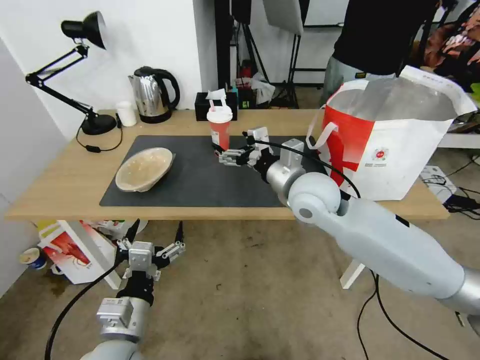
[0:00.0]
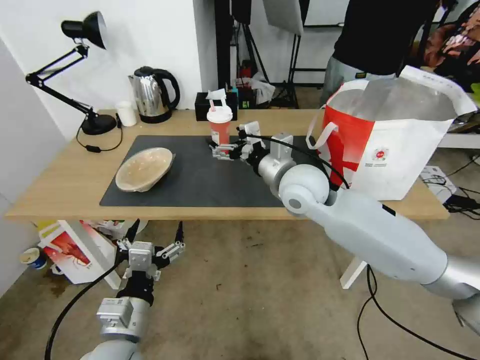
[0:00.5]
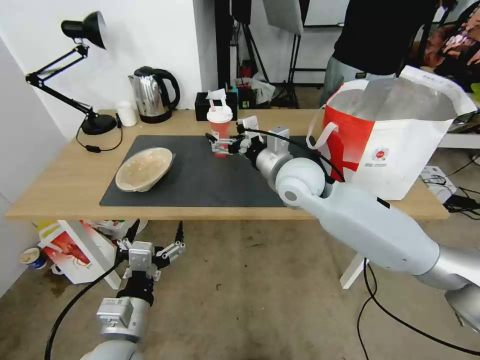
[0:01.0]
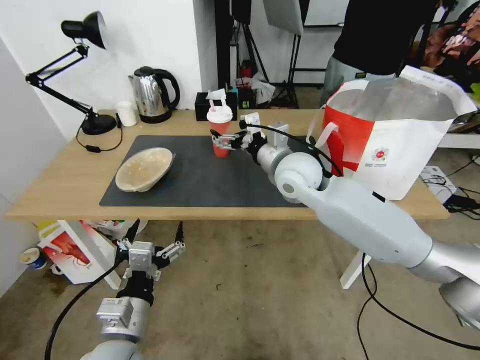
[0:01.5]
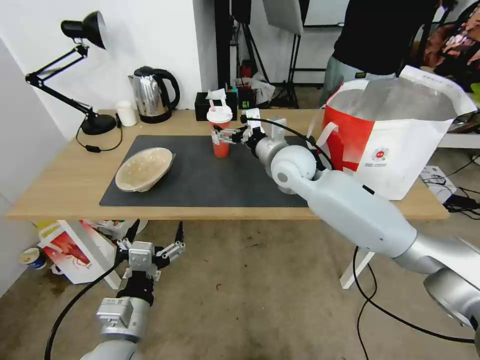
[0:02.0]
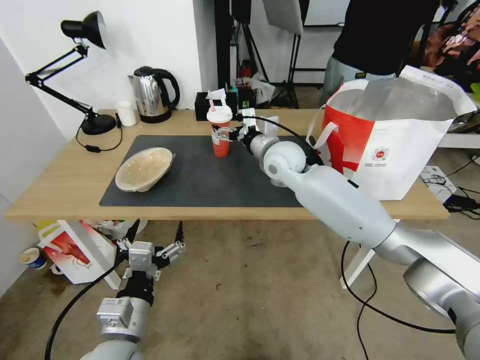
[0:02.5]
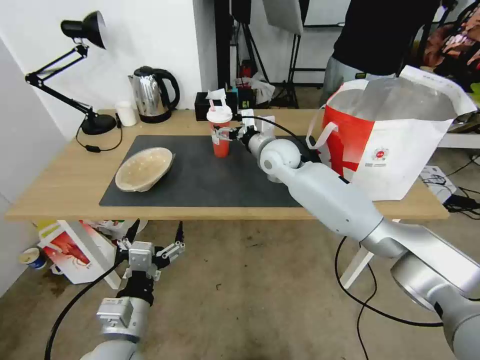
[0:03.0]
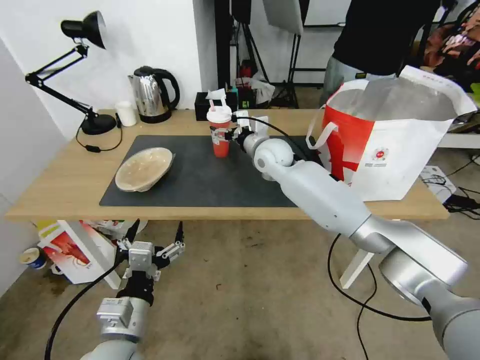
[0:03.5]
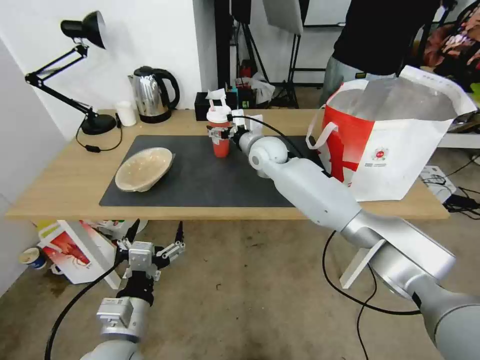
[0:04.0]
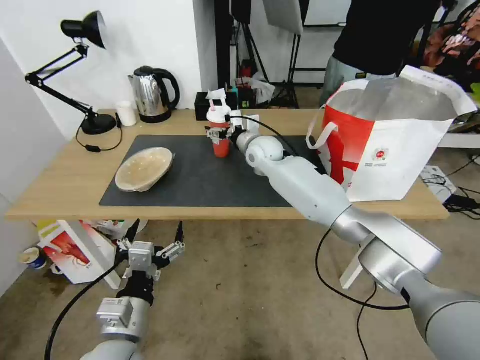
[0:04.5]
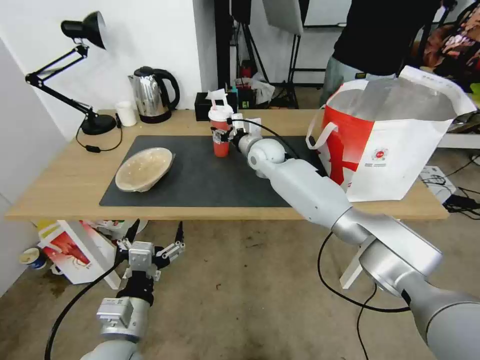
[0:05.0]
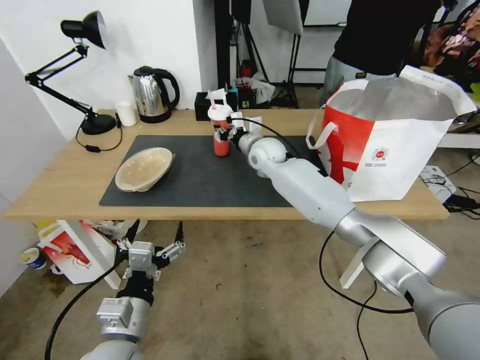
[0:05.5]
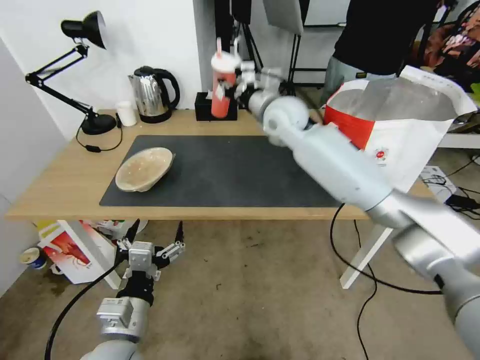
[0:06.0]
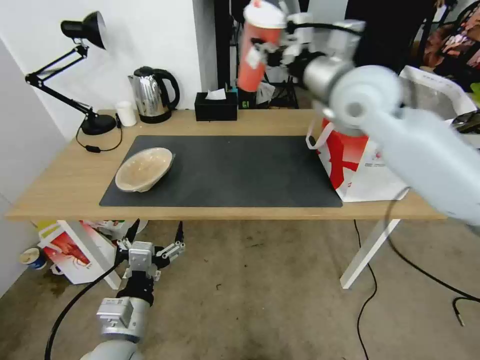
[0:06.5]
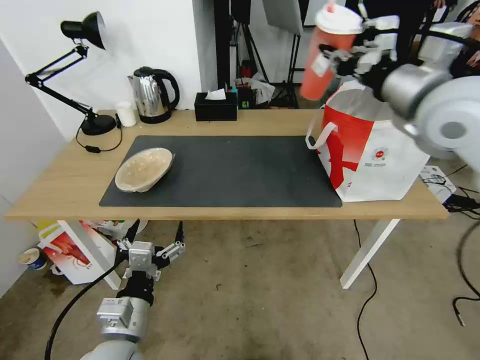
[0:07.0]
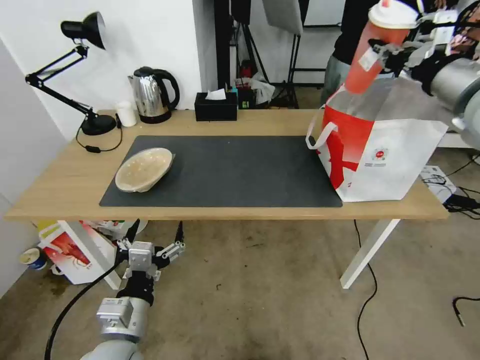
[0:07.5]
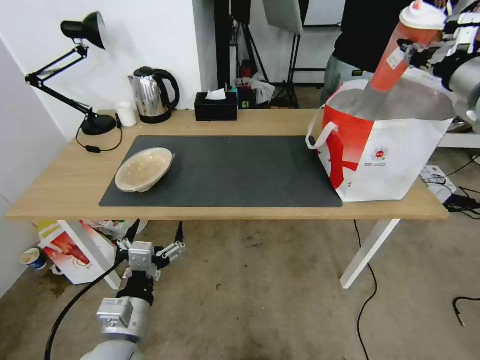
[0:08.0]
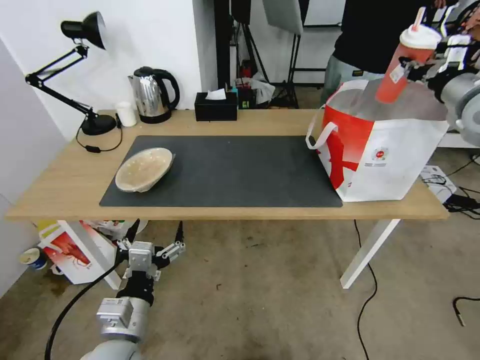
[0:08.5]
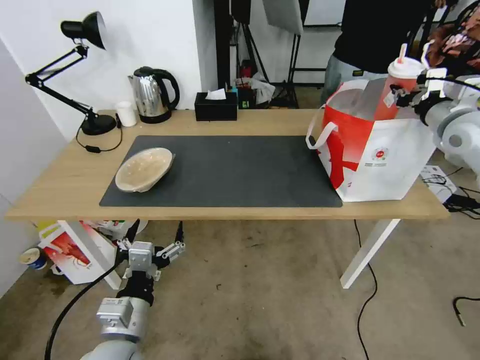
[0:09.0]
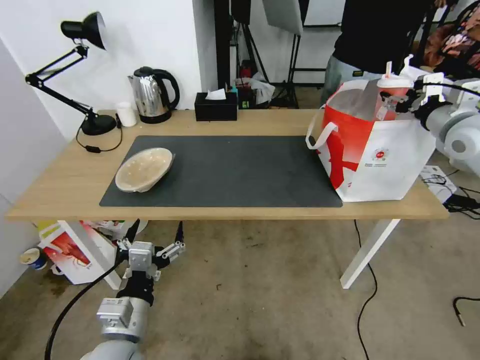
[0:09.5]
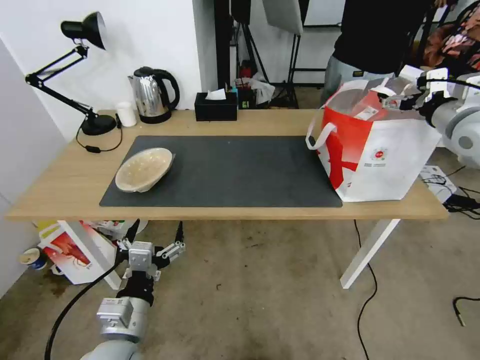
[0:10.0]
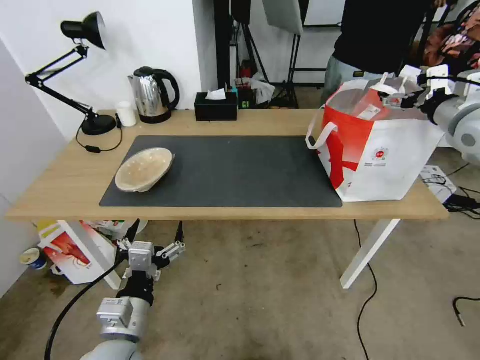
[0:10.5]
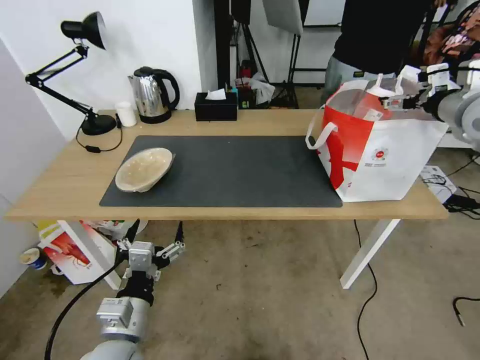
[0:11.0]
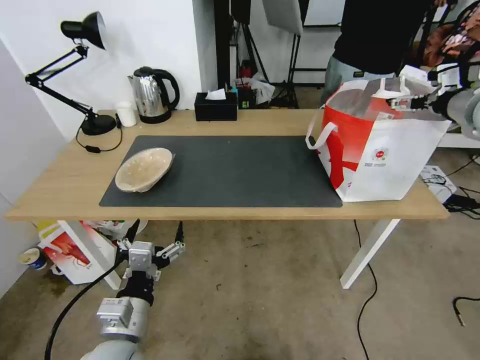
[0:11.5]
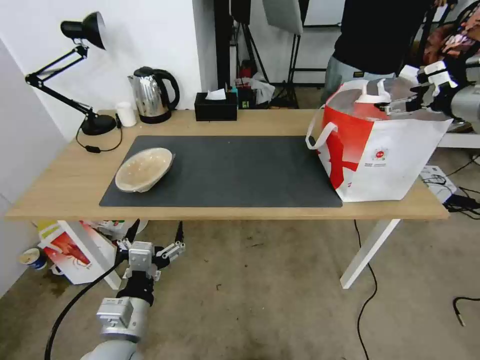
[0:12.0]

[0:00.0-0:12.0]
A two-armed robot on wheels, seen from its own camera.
Task of the whole recording: Pick up the trash from the table and place it into the takeout bag.
0:00.0 to 0:02.0: The right gripper moves forward, about 10 cm.
0:02.0 to 0:04.0: The right gripper is displaced forward by roughly 10 cm.
0:04.0 to 0:06.0: The right gripper heads upward, covering approximately 10 cm, and closes its fingers.
0:06.0 to 0:08.0: The right gripper travels to the right and backward by some 35 cm.
0:08.0 to 0:10.0: The right gripper shifts some 10 cm downward, and opens.
0:10.0 to 0:12.0: The right gripper heads upward, covering approximately 5 cm.

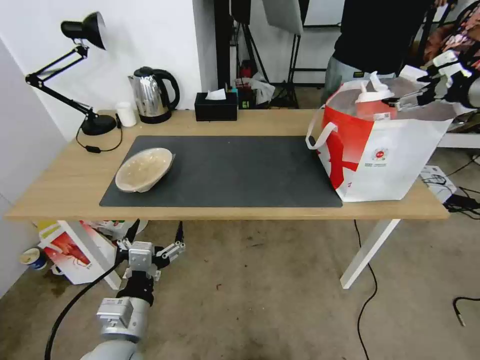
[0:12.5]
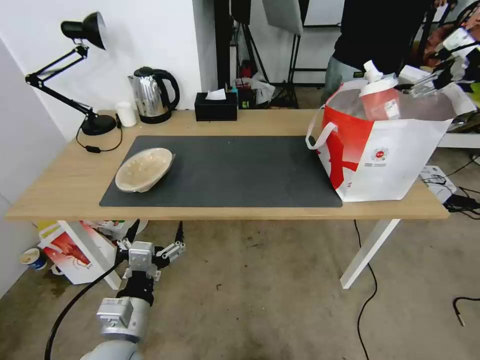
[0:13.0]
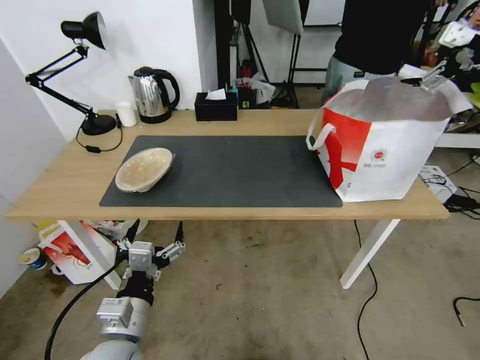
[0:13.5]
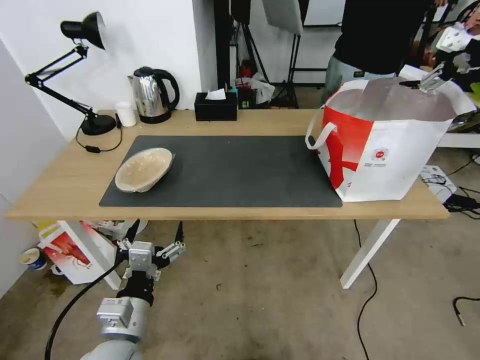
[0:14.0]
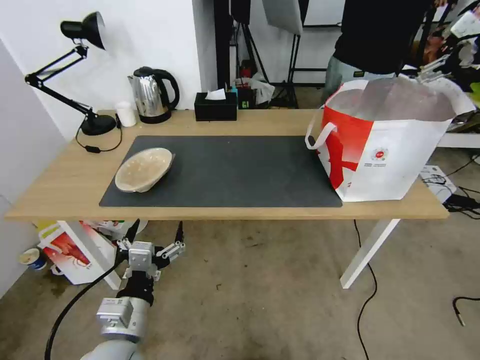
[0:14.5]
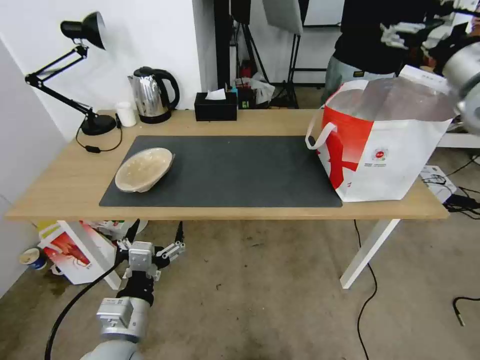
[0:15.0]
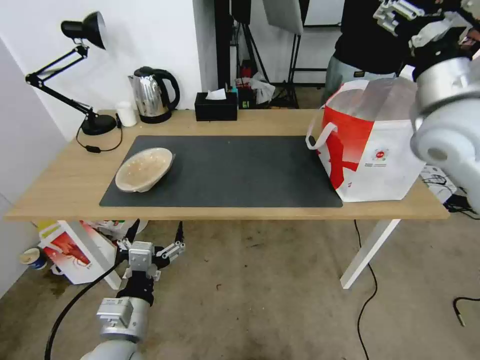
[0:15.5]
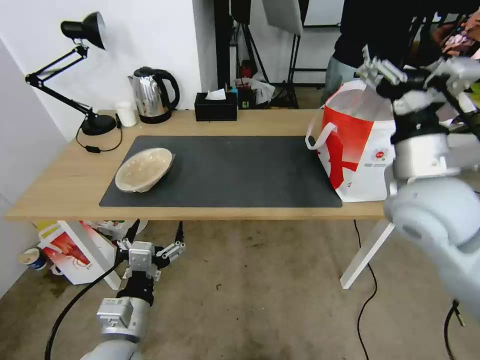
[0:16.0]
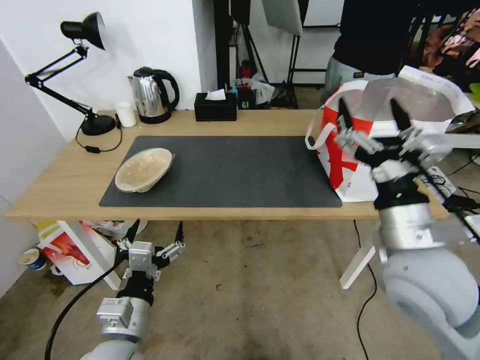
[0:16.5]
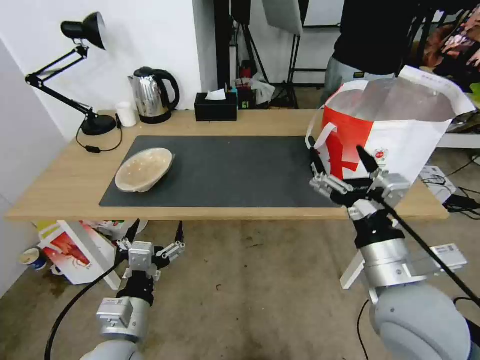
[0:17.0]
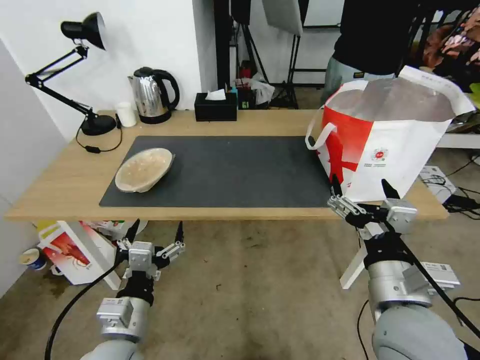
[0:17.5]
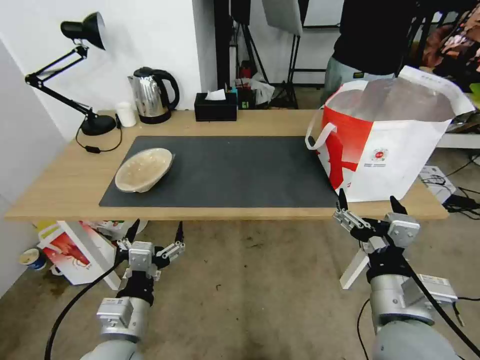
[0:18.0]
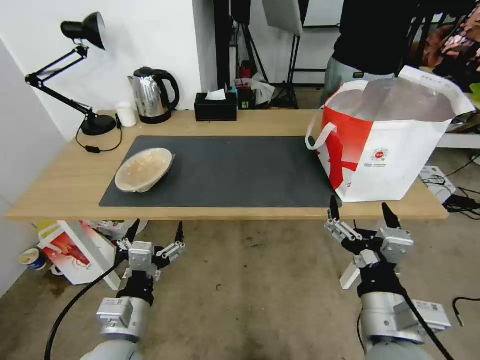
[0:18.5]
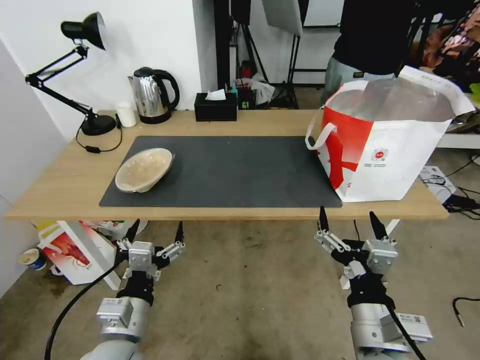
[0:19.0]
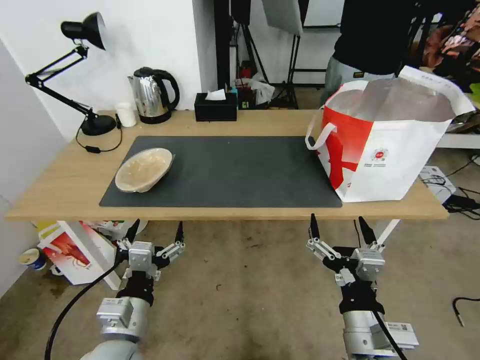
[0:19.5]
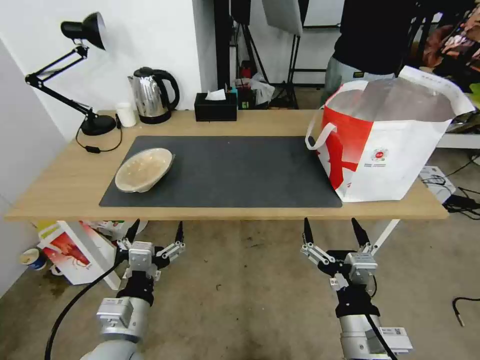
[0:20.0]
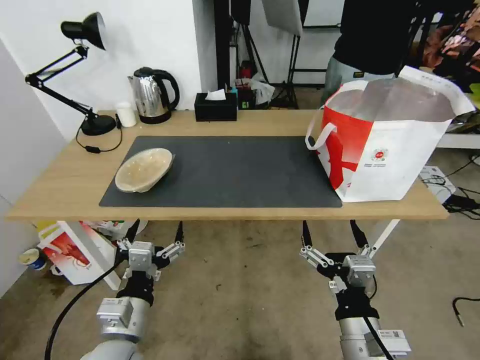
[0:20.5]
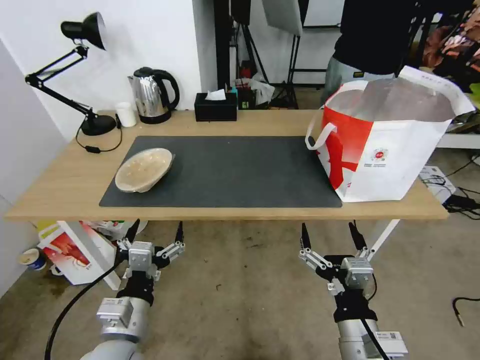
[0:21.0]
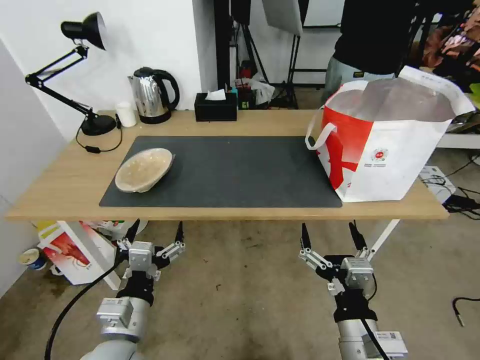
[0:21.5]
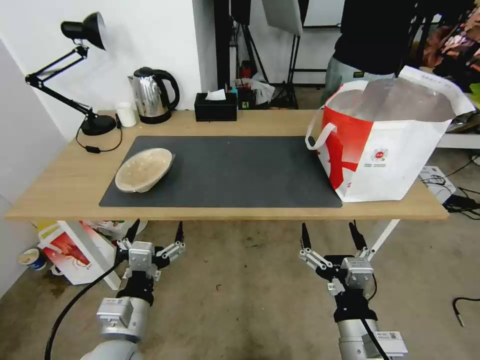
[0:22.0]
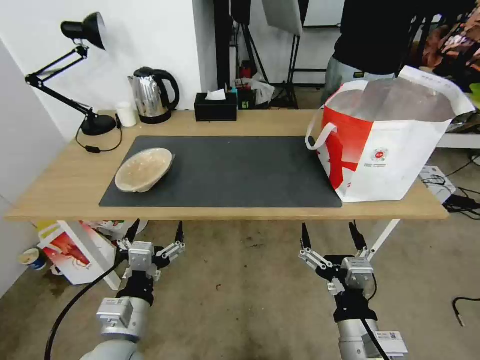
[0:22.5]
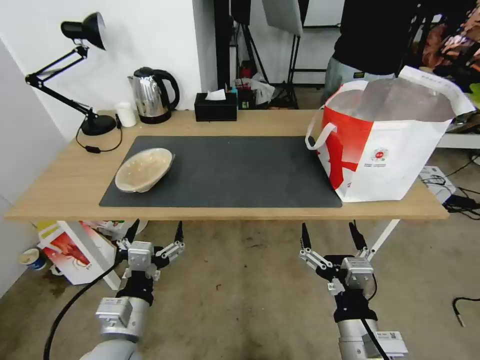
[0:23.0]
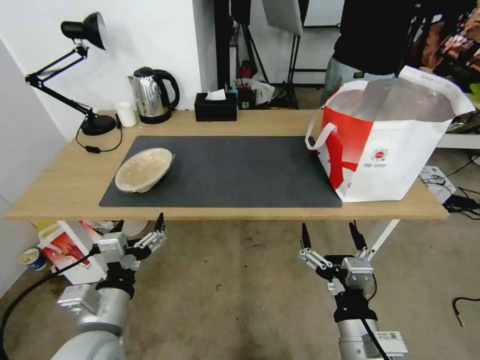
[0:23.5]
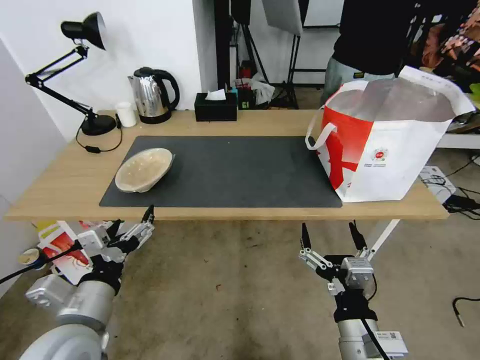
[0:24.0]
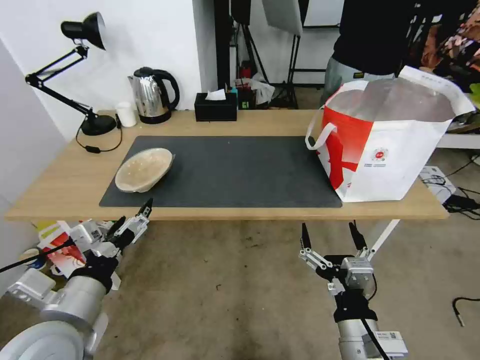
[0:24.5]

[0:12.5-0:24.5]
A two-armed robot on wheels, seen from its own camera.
Task of the whole recording: Pick up the trash from the table and place it into the takeout bag.
0:12.5 to 0:14.5: The right gripper goes approximately 5 cm upward.
0:14.5 to 0:16.5: The right gripper heads to the left, downward and backward, covering about 40 cm.
0:16.5 to 0:18.5: The right gripper travels backward and downward by approximately 15 cm.
0:18.5 to 0:20.5: The right gripper moves downward, roughly 5 cm.
0:20.5 to 0:22.5: Neither gripper changes place.
0:22.5 to 0:24.5: The left gripper moves upward and to the left, about 10 cm.

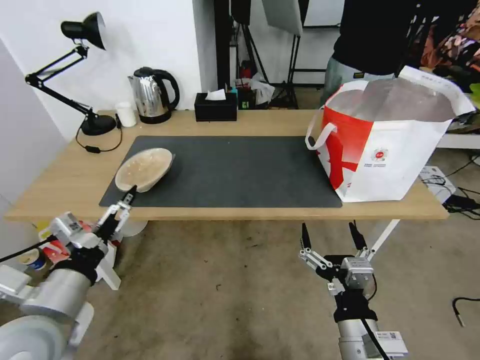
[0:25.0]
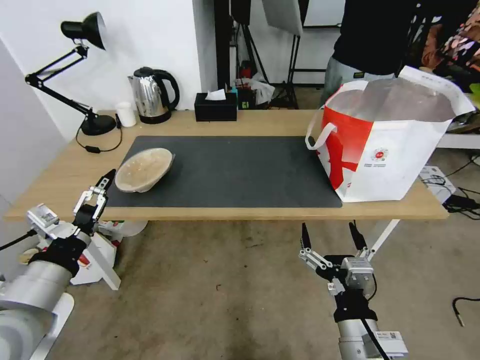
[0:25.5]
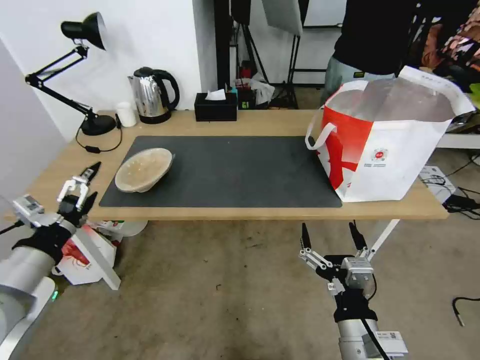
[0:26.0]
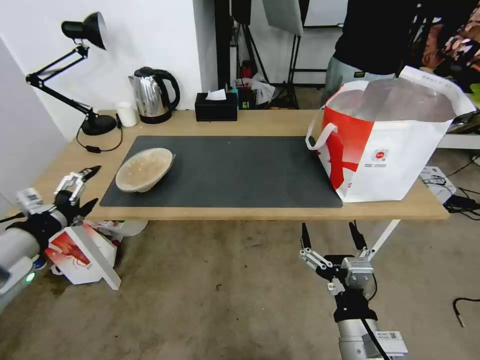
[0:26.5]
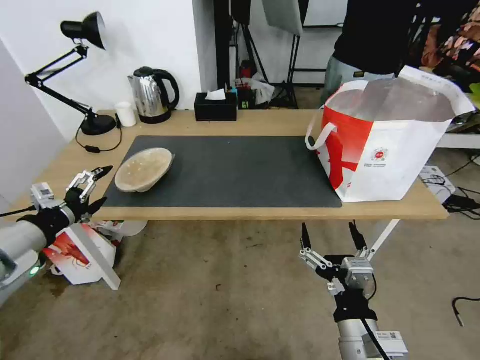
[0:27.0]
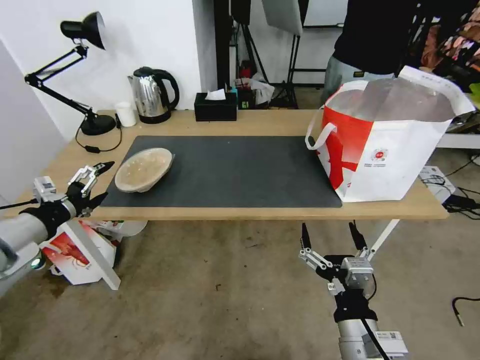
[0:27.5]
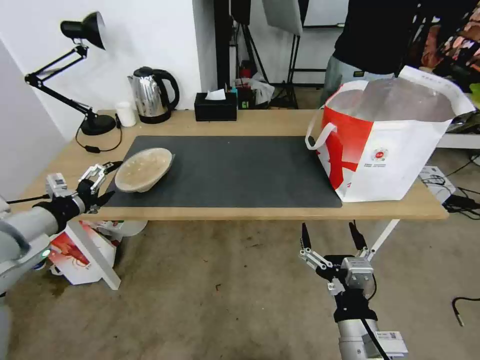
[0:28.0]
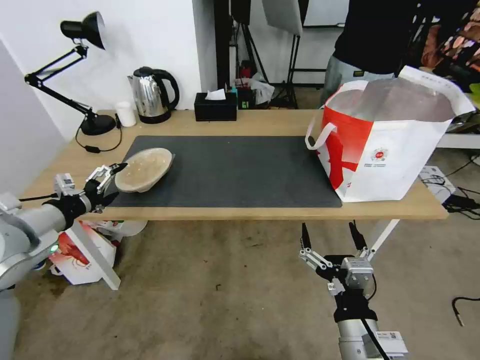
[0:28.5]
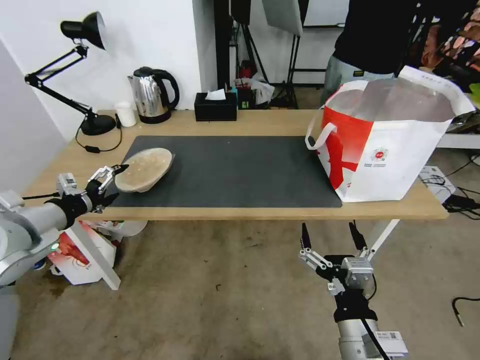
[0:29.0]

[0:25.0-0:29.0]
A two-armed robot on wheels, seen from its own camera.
Task of the whole recording: Pick up the trash from the table and place it into the takeout bag.
0:25.0 to 0:27.0: The left gripper shifts about 15 cm to the left, forward and upward.
0:27.0 to 0:29.0: The left gripper goes about 5 cm forward.
